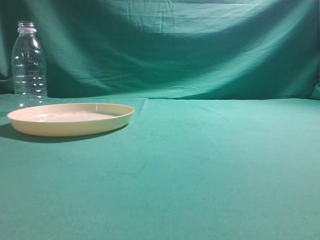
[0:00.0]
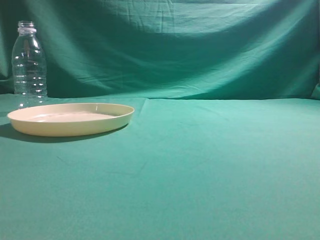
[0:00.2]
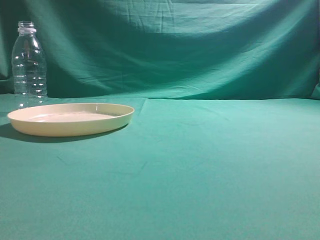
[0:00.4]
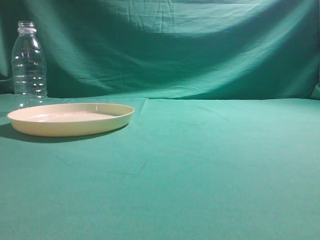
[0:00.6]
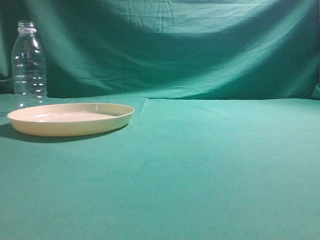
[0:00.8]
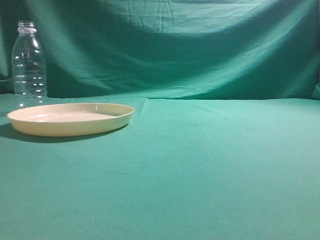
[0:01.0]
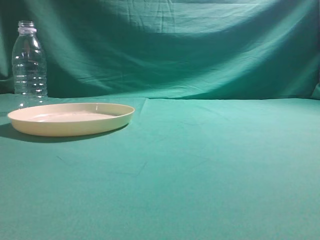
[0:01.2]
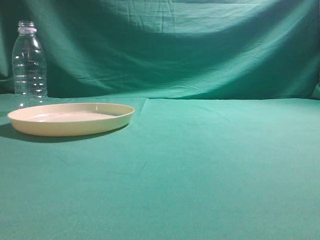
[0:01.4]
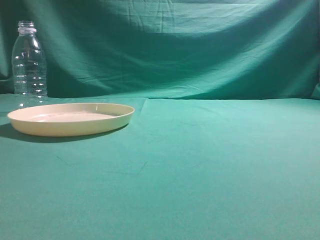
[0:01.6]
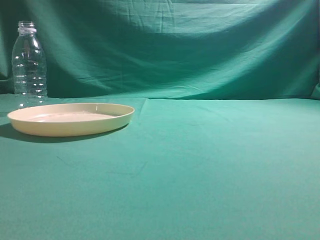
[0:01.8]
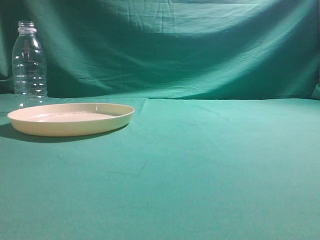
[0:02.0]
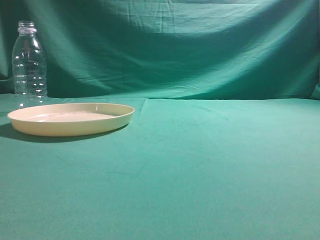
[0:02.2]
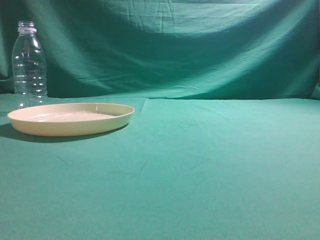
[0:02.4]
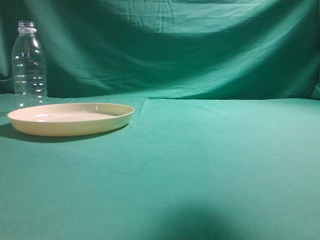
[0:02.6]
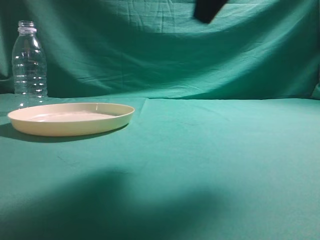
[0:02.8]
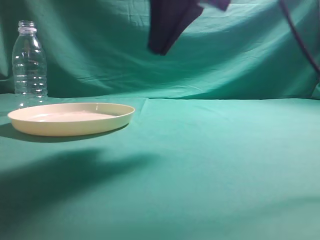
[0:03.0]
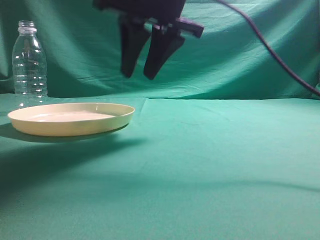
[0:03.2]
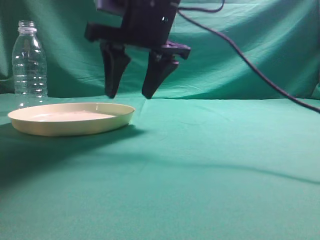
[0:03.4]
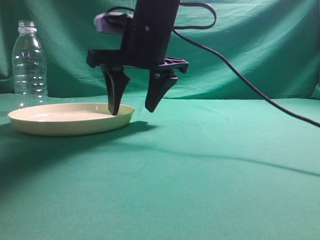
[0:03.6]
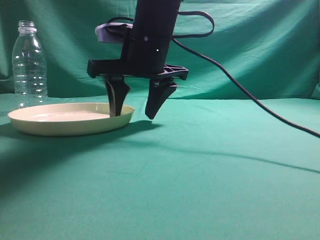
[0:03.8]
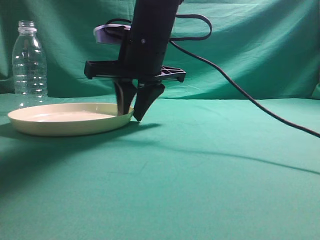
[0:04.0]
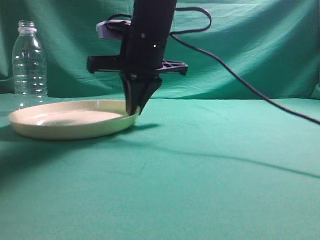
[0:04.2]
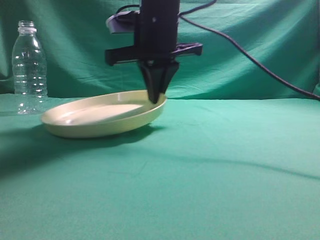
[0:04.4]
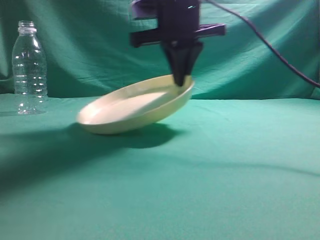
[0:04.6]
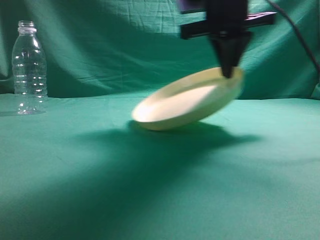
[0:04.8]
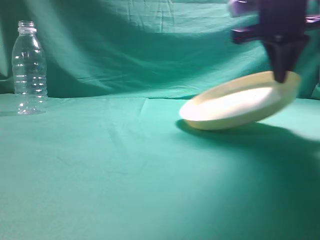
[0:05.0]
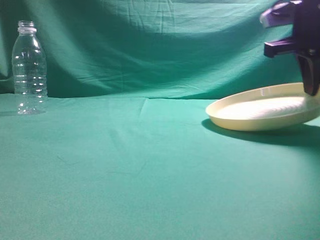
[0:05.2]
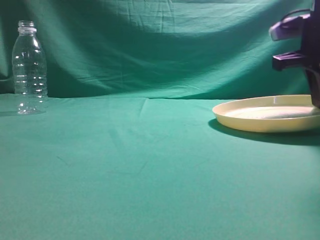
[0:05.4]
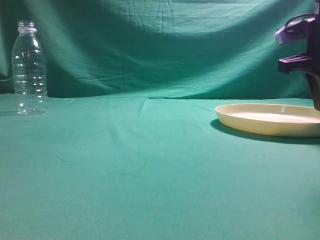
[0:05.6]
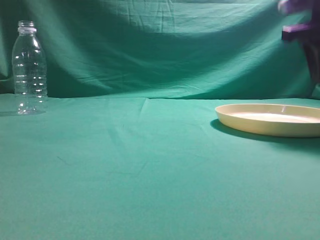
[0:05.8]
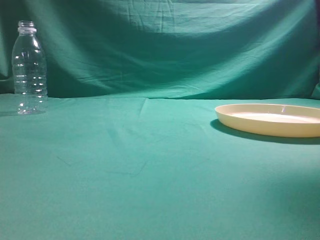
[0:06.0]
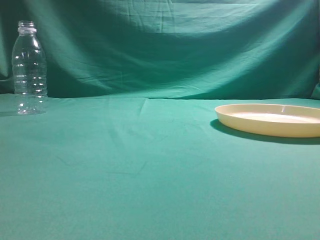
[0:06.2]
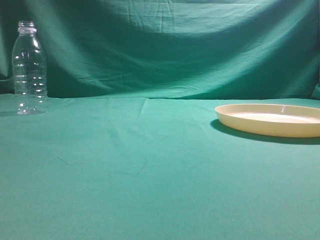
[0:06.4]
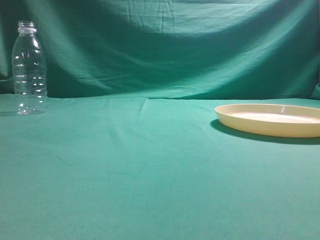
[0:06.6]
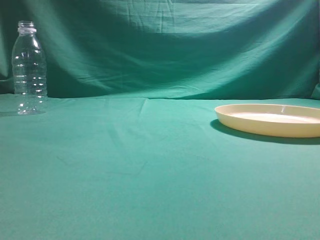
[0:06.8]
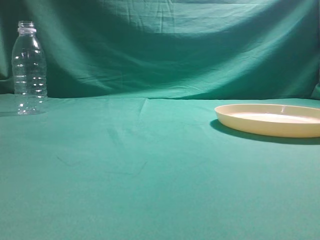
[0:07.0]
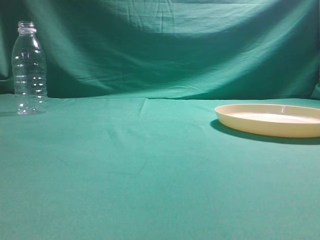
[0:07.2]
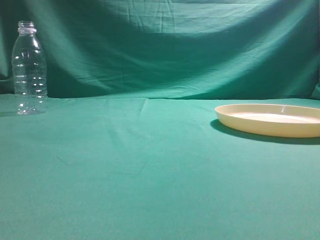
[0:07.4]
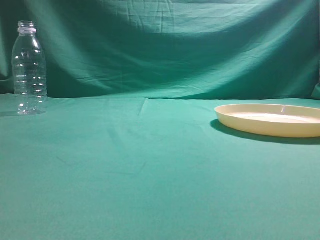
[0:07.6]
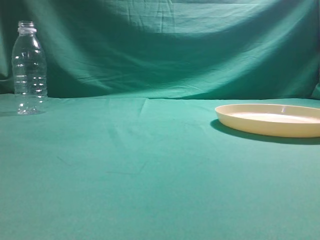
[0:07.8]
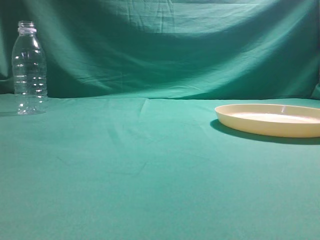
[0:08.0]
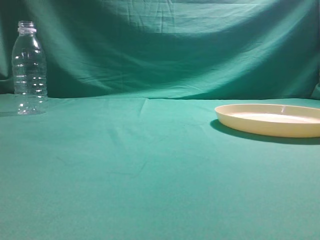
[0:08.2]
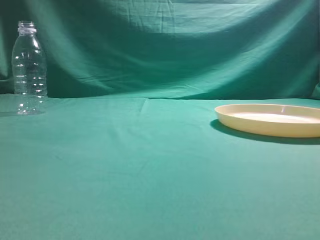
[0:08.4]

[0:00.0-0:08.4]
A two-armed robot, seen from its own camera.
Step, 0:00.0 to 0:04.4: Pick the container that can hold fruits.
Step, 0:04.6 to 0:06.2: Move the picked object to the right side of the table.
0:01.4 to 0:02.8: The right gripper is displaced forward, to the left and upward by roughly 25 cm.
0:02.8 to 0:04.2: The right gripper moves to the left, downward and forward, some 25 cm, and opens, then closes again.
0:04.2 to 0:05.6: The right gripper moves to the right, about 25 cm.
0:05.6 to 0:07.0: The right gripper travels backward and upward by about 40 cm, and opens, then closes again.
